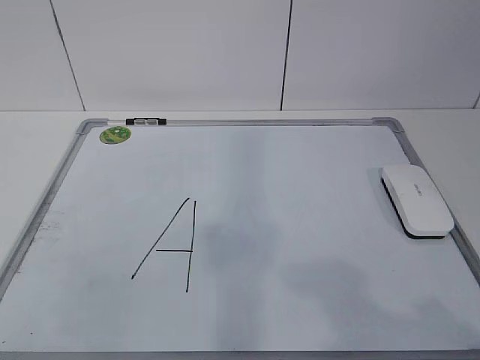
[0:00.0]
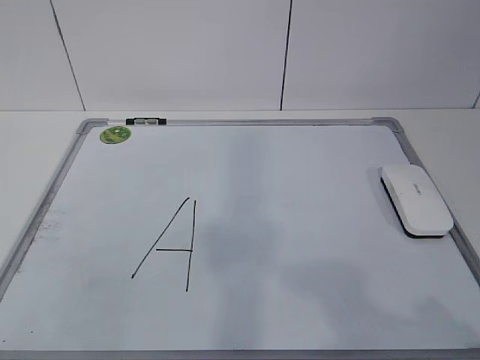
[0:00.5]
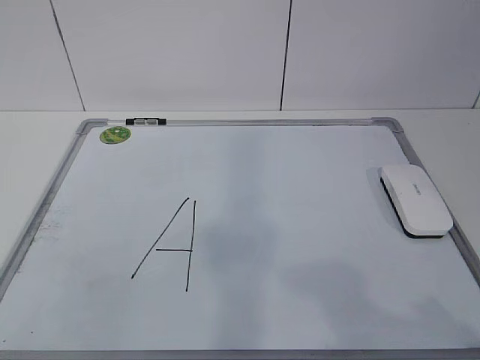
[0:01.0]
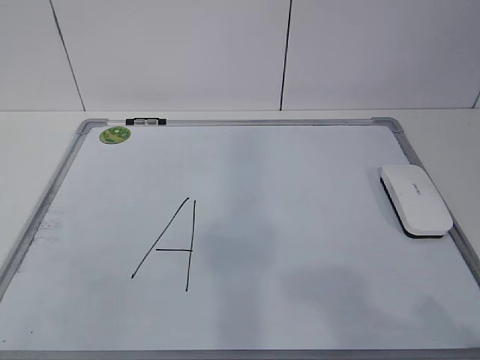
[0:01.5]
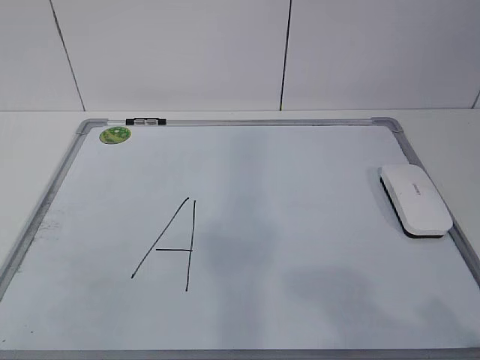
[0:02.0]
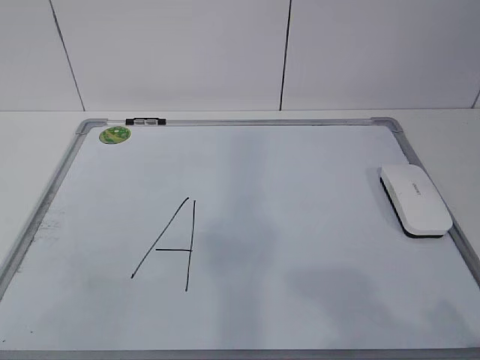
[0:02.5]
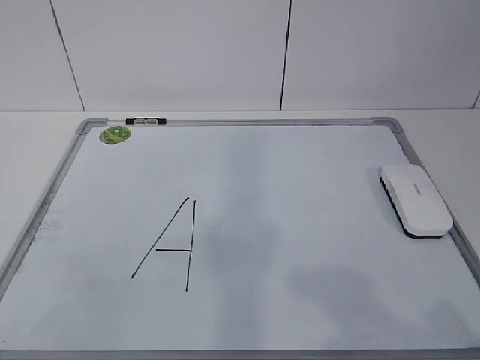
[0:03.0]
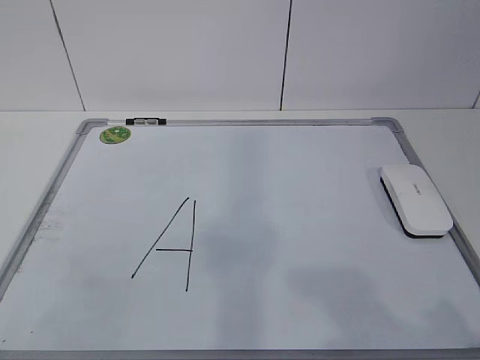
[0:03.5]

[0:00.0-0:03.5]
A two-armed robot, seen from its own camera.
Task of the whole recording: pick up the eraser on the blackboard and erase the letter "a".
0:00.0 to 0:02.0: Both grippers stay about where they are.
